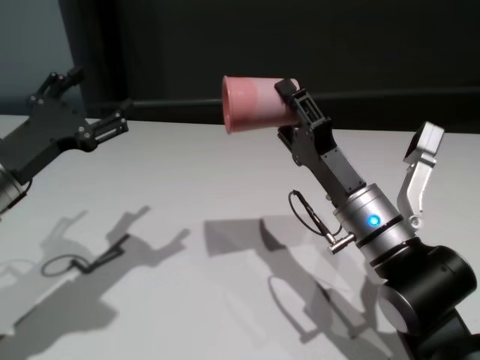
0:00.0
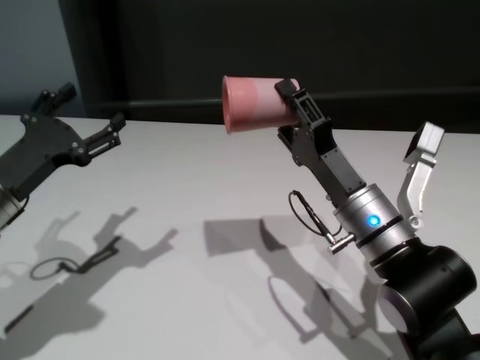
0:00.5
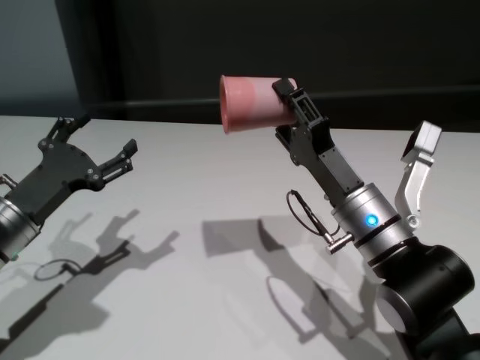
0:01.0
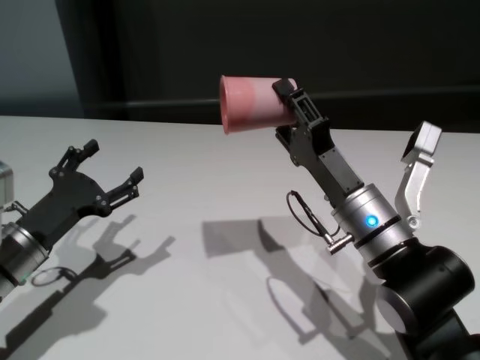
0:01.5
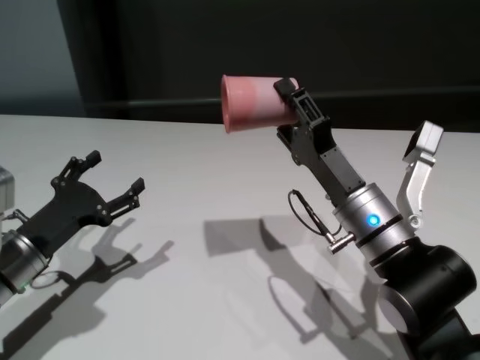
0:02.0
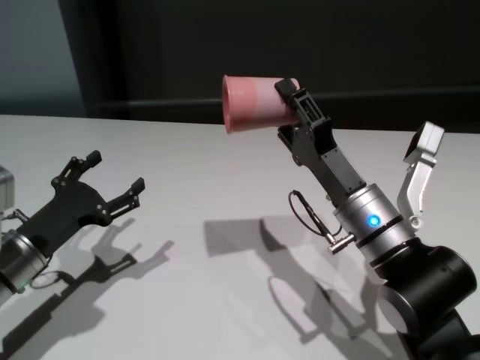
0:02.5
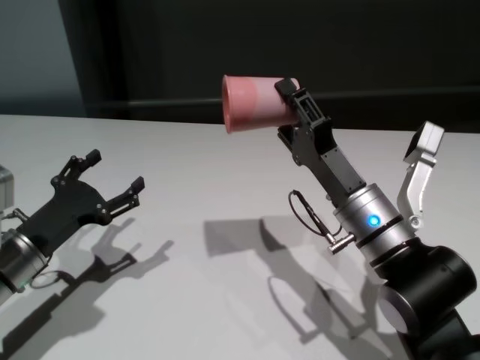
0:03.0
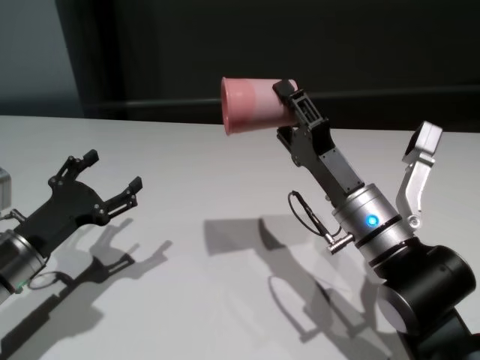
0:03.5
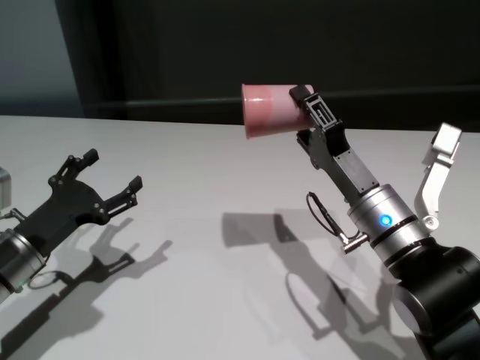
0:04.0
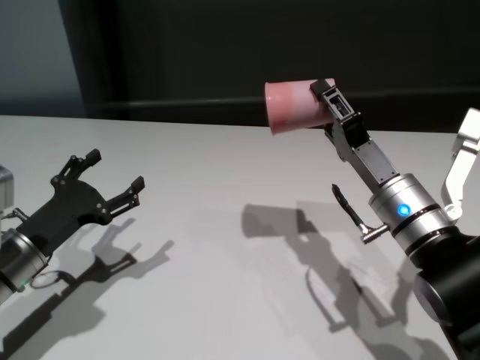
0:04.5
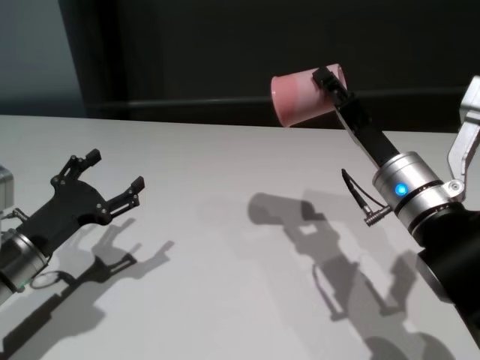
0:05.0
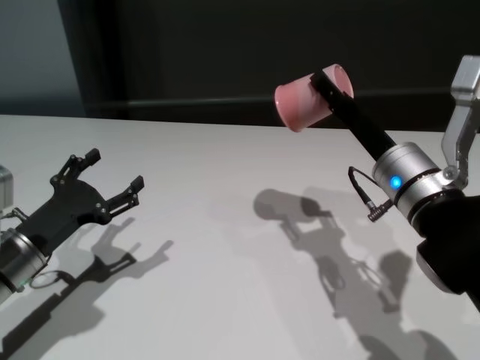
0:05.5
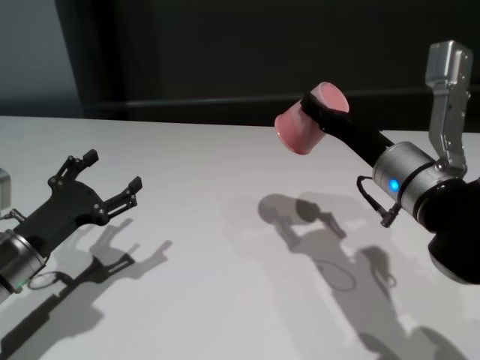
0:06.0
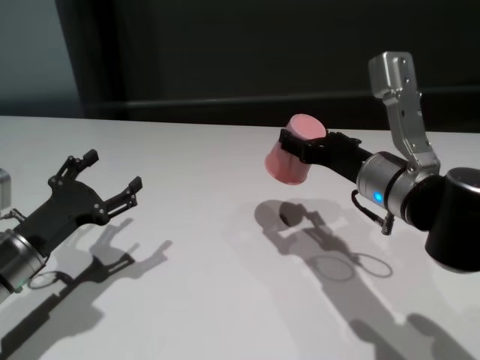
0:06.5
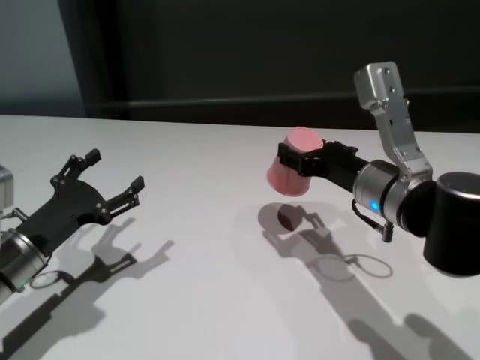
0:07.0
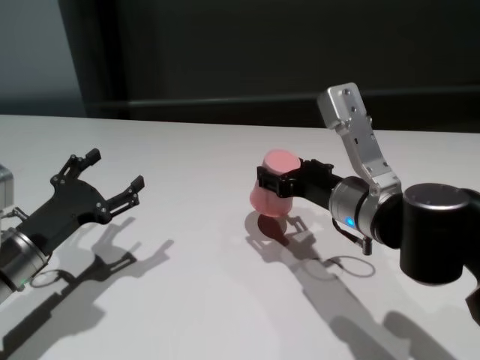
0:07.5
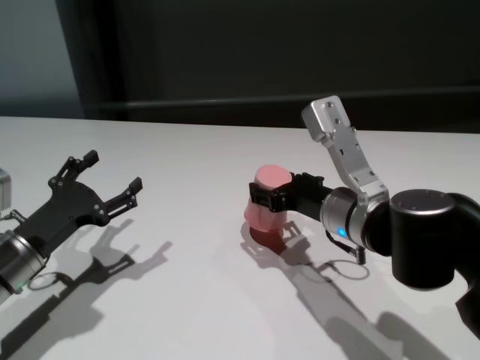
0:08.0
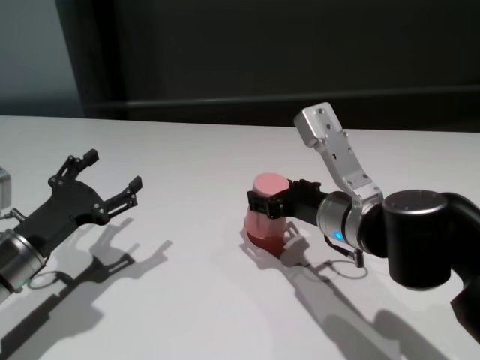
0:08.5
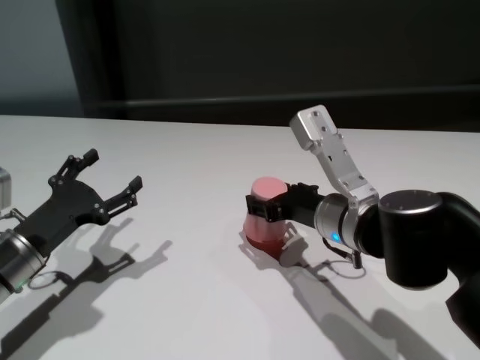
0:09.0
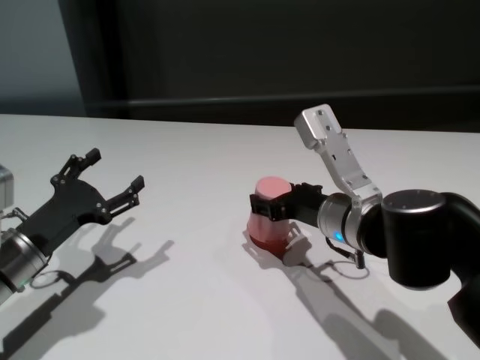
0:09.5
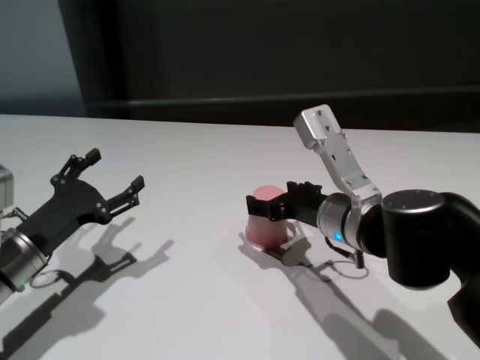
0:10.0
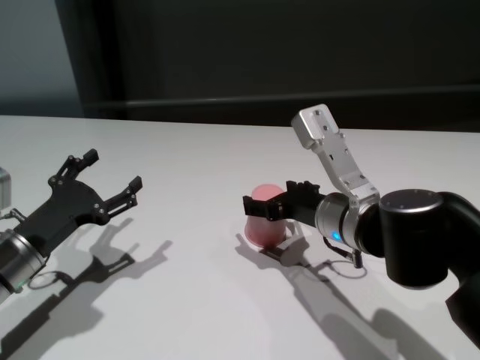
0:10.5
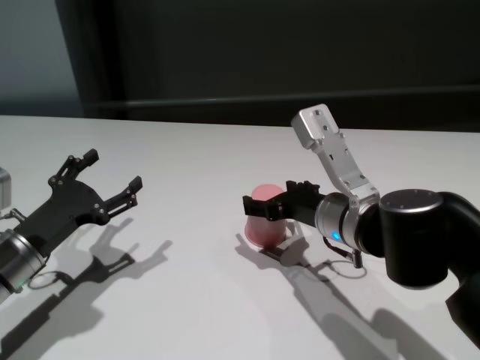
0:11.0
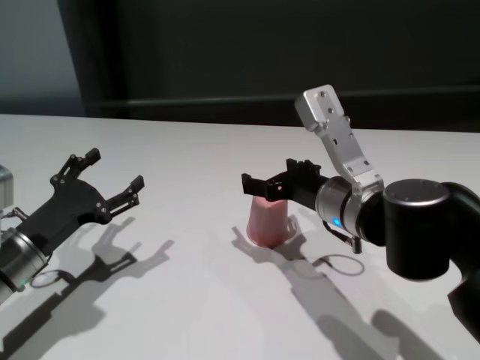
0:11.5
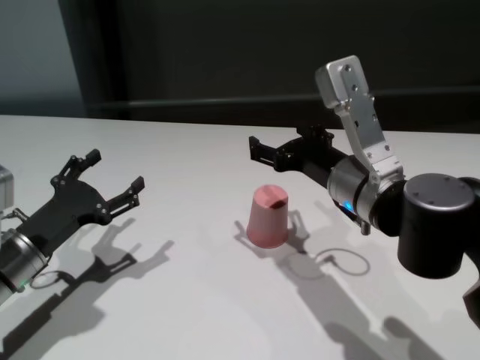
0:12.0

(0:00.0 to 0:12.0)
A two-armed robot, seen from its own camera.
Task of the whole recording: On the white table pick up the cup with one hand and transfer it to the other hand before turning it over.
Step, 0:00.0 - 0:10.0: Place the cup on the table with right gripper.
